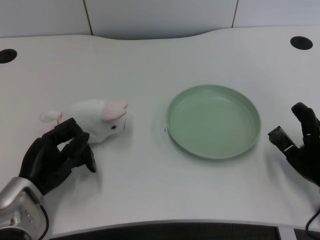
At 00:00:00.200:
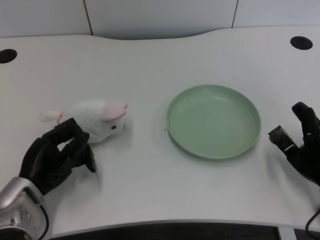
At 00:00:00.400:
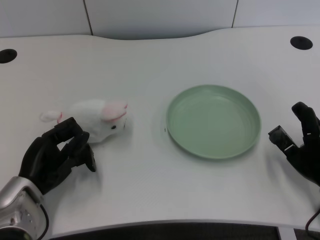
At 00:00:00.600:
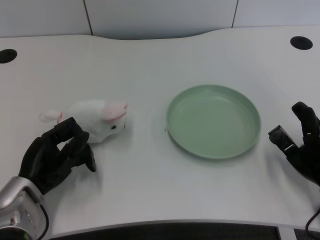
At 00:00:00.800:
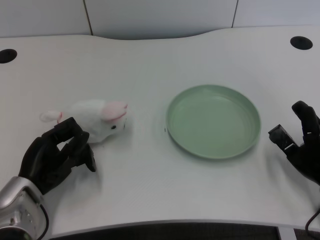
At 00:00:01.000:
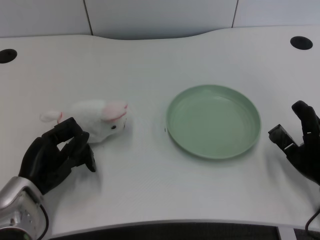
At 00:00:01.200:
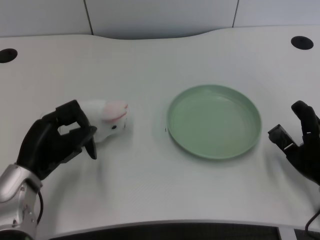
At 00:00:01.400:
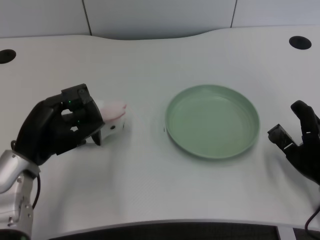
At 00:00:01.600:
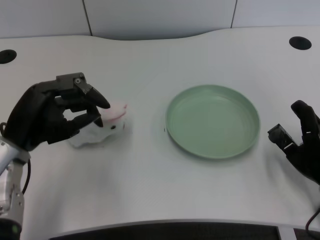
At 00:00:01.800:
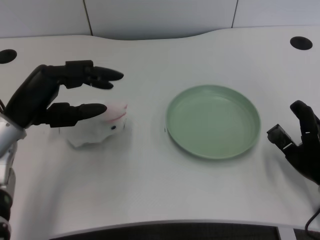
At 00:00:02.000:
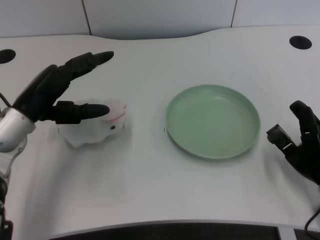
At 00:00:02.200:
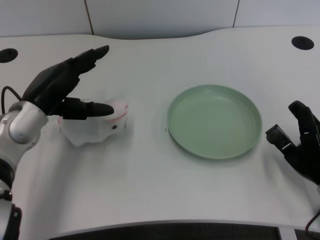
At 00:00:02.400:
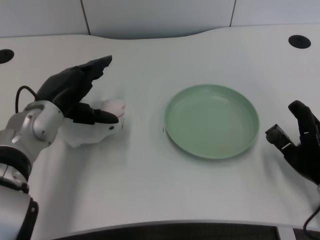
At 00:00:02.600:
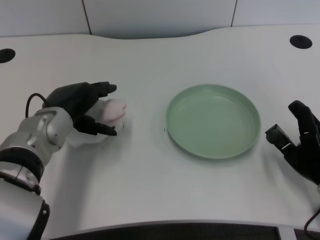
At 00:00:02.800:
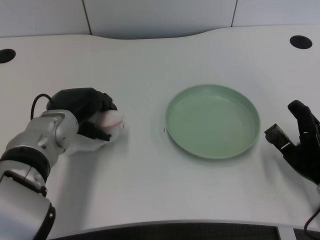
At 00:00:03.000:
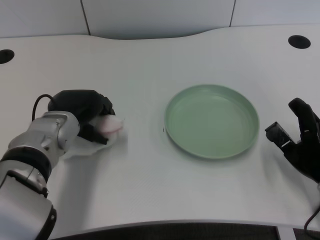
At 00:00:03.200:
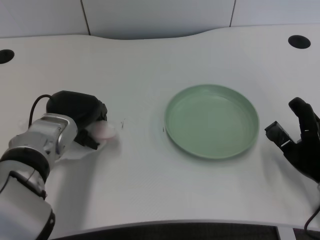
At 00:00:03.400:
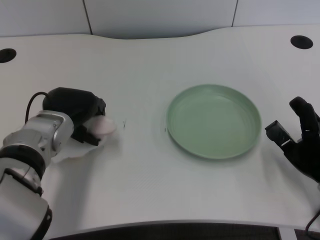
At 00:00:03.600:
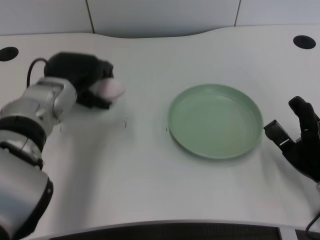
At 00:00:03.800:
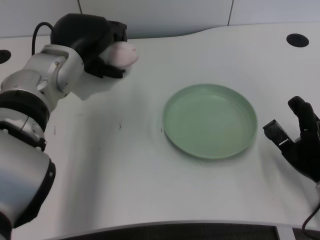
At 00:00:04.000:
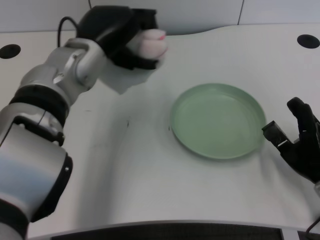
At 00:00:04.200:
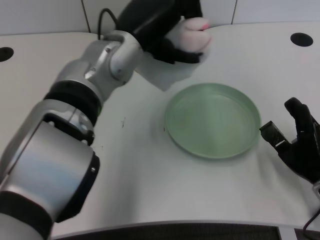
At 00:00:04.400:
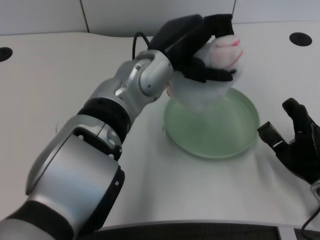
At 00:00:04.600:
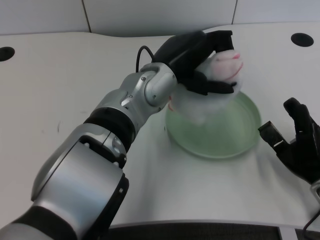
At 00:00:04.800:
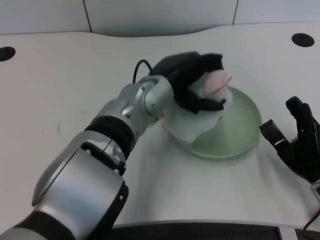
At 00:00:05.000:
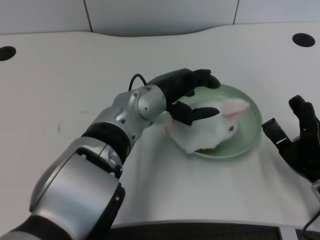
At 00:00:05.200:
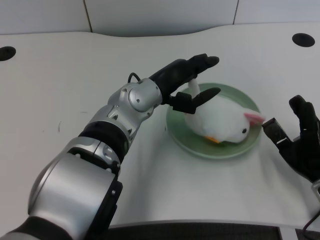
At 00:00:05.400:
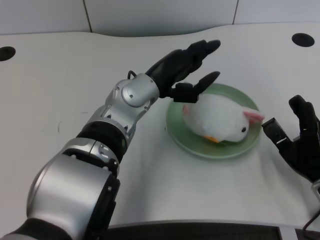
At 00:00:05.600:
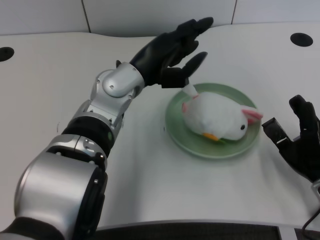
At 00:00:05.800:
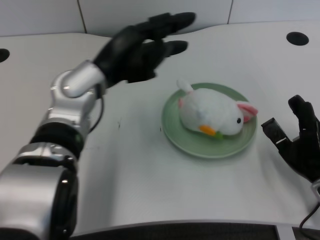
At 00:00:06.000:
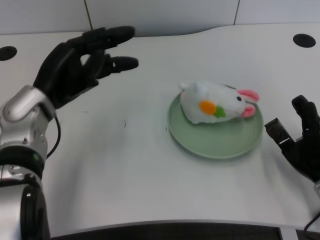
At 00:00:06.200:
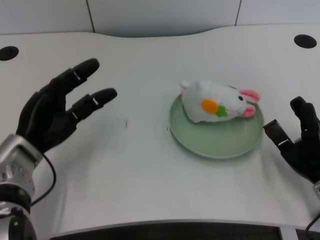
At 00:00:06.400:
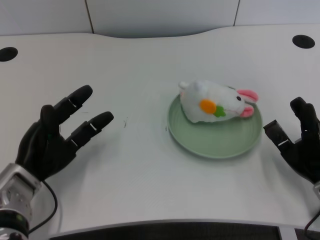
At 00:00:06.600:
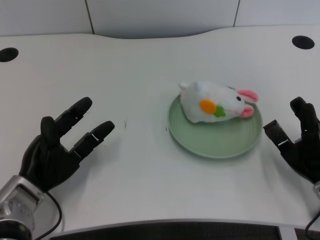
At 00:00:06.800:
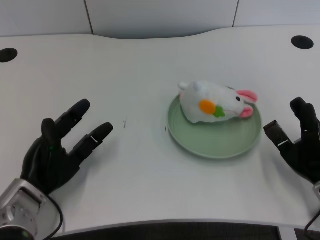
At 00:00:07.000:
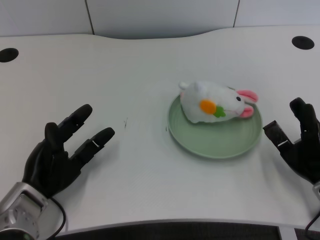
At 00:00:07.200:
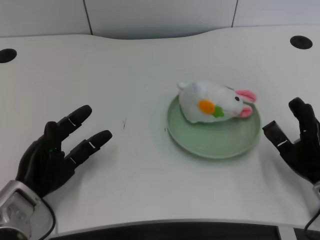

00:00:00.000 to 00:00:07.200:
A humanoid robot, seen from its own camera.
Task of the whole recording: pick up the rabbit doll from the table and place it on the plate.
Step, 00:00:01.200 to 00:00:03.400: Grasp the rabbit doll with the left gripper.
Step, 00:00:03.600 to 00:00:05.000: Place the rabbit doll into the plate with the left gripper.
00:00:01.400 to 00:00:02.800: The left hand shifts roughly 10 cm forward and to the right.
00:00:02.800 to 00:00:04.400: The left hand heads to the right and upward, covering roughly 15 cm.
00:00:04.400 to 00:00:05.800: The left hand shifts about 10 cm to the left.
00:00:05.800 to 00:00:07.200: The left hand is displaced downward, to the left and backward by roughly 20 cm.

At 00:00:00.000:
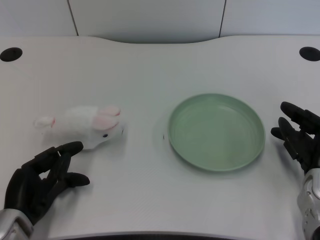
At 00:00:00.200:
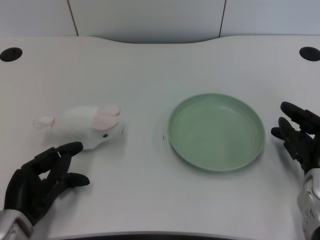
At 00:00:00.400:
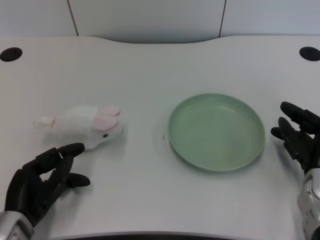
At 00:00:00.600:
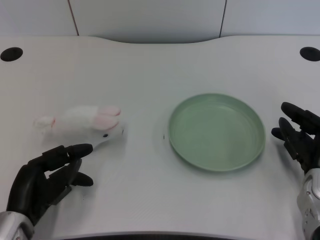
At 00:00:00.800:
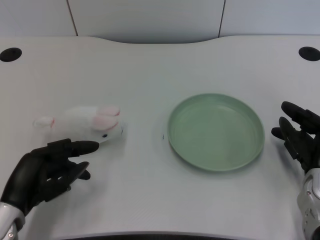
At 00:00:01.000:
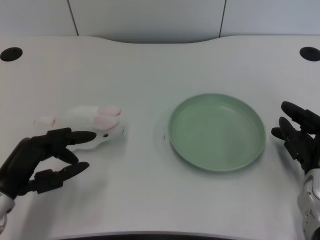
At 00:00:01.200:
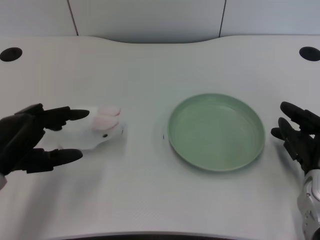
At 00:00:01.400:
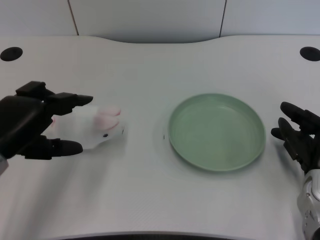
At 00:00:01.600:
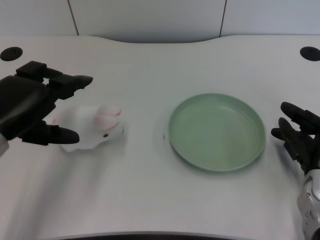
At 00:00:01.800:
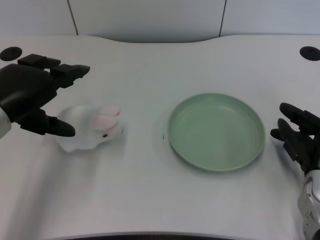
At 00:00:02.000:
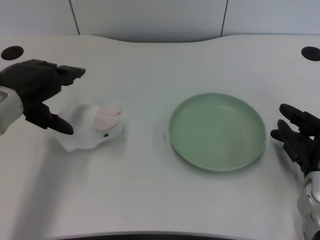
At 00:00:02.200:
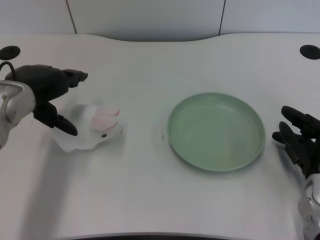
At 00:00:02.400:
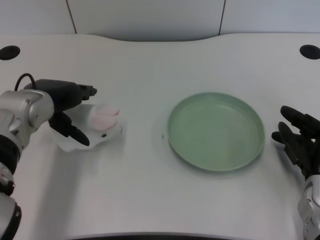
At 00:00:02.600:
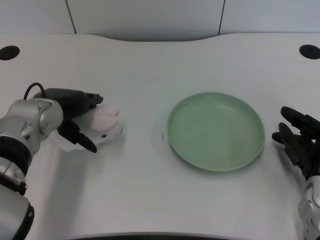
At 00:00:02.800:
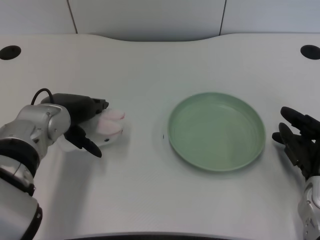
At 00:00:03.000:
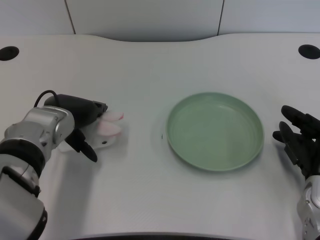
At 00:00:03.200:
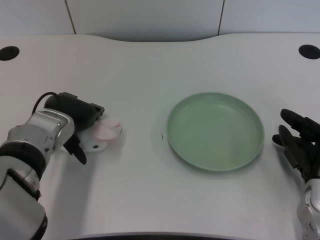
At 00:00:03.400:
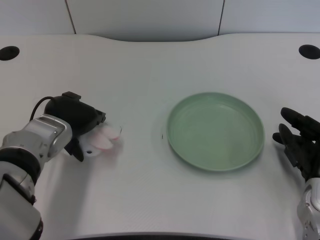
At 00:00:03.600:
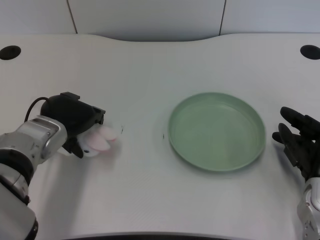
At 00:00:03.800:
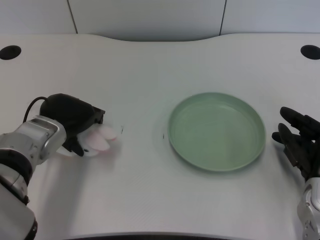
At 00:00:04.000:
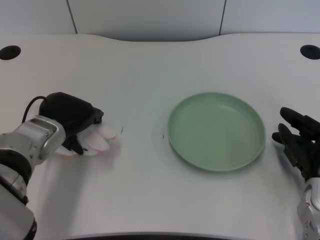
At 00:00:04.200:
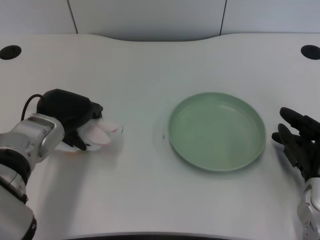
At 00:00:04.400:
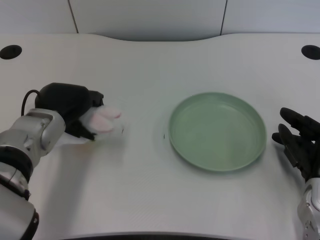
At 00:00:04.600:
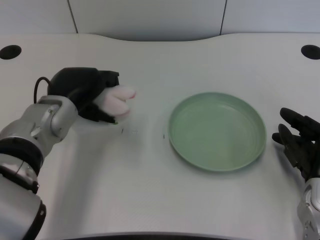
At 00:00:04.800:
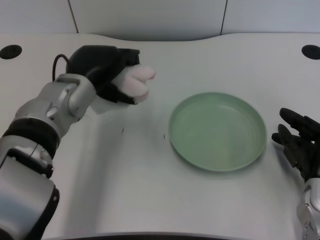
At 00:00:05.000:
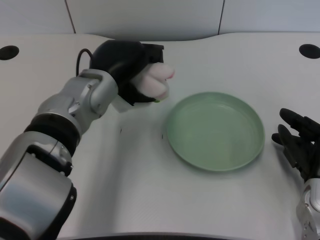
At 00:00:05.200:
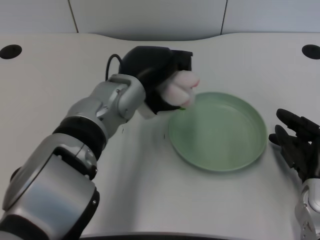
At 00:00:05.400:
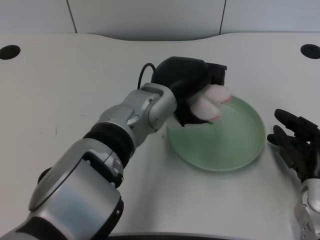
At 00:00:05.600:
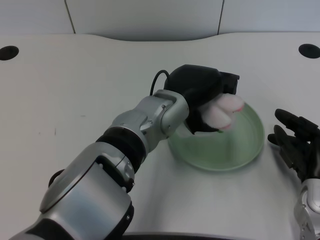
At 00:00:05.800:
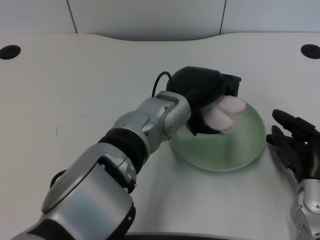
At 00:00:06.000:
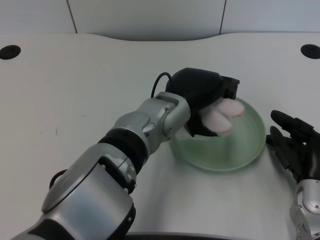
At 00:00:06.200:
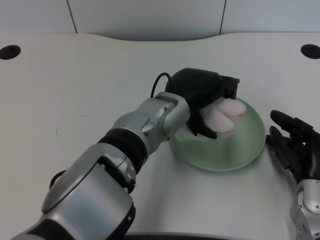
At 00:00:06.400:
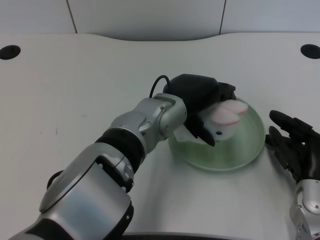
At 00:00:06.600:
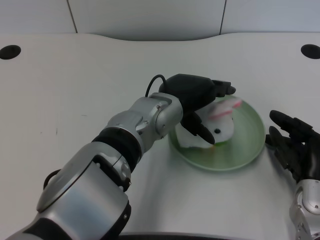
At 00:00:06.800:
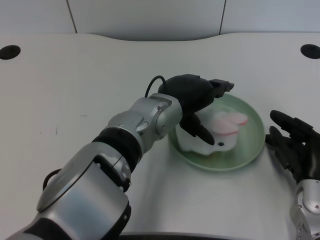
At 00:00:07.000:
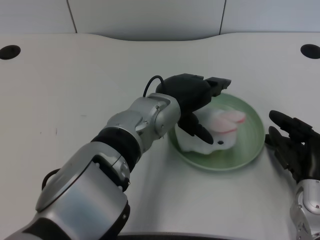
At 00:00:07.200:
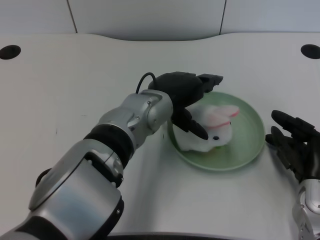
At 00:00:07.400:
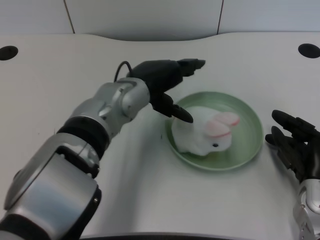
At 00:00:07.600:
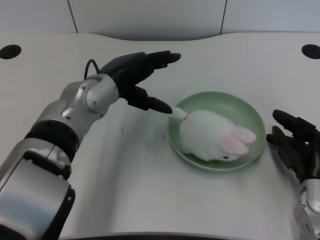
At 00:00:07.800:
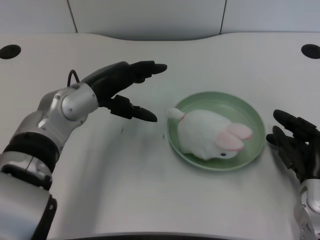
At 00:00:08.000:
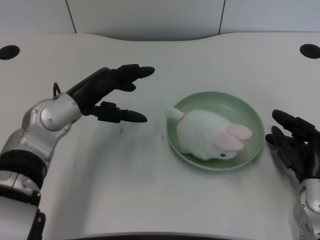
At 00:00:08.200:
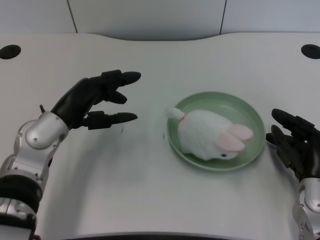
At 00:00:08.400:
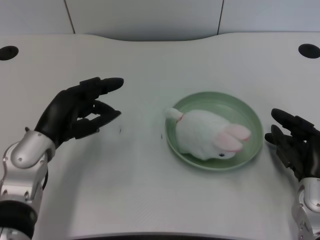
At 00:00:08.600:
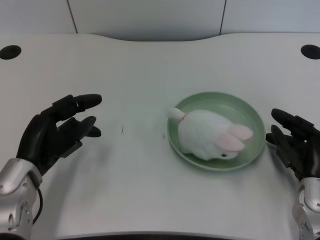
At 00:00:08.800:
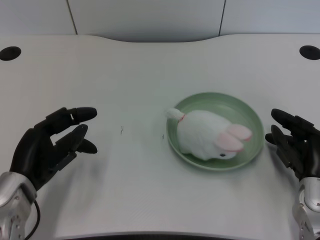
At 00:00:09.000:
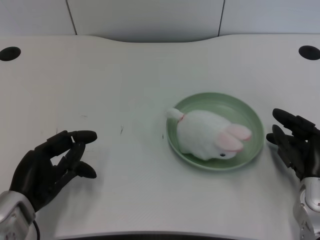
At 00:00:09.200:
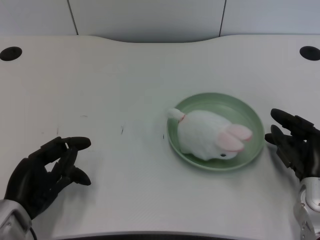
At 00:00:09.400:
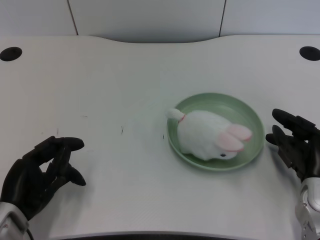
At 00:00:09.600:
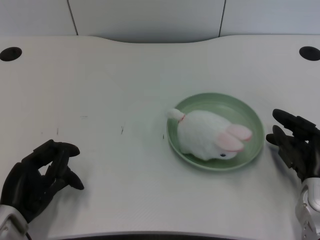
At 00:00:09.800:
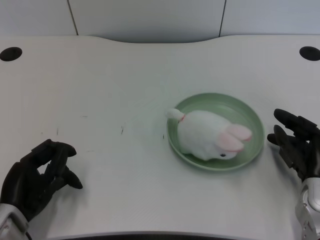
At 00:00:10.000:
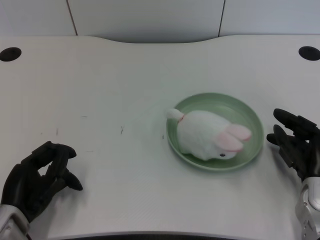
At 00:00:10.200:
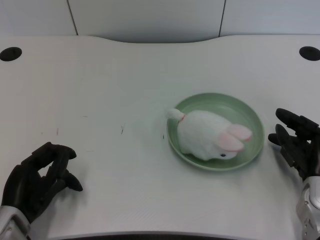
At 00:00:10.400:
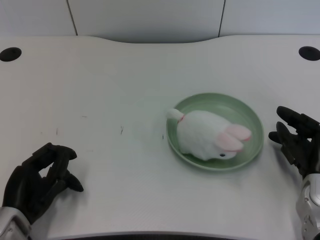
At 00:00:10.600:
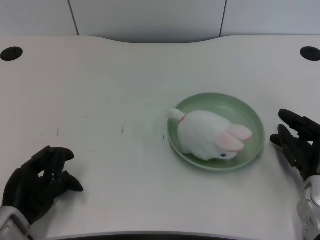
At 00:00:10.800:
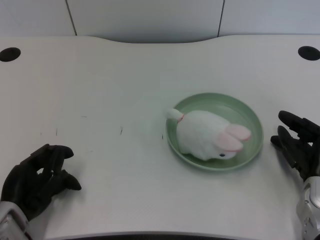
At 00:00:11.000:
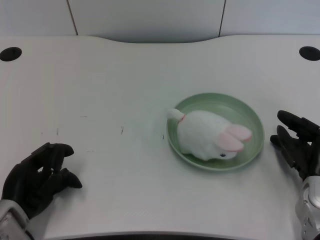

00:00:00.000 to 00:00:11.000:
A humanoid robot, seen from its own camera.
Task of the whole recording: pick up the rabbit doll from the table and place it on the plate.
Step, 00:00:00.800 to 00:00:04.400: Grasp the rabbit doll with the left gripper.
Step, 00:00:04.600 to 00:00:06.600: Place the rabbit doll into the plate with the left gripper.
00:00:01.600 to 00:00:03.200: The left hand is displaced to the right, forward and downward by roughly 10 cm.
00:00:03.200 to 00:00:04.800: The left hand changes place by about 5 cm.
00:00:04.800 to 00:00:06.200: The left hand moves to the right, some 15 cm.
00:00:06.200 to 00:00:07.800: The left hand moves to the left, about 15 cm.
00:00:07.800 to 00:00:09.400: The left hand moves backward, to the left and downward, approximately 20 cm.
00:00:09.400 to 00:00:11.000: The hands make only small movements.
